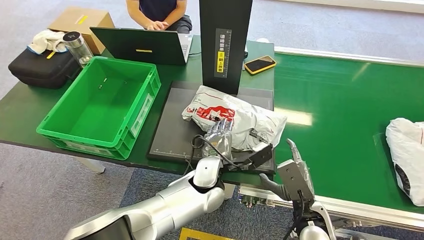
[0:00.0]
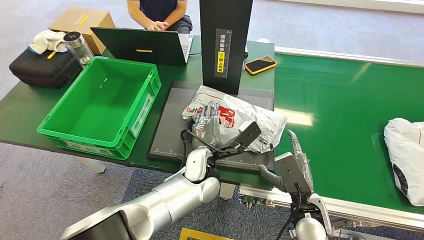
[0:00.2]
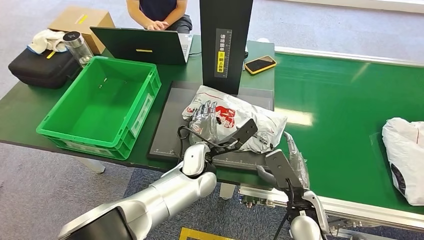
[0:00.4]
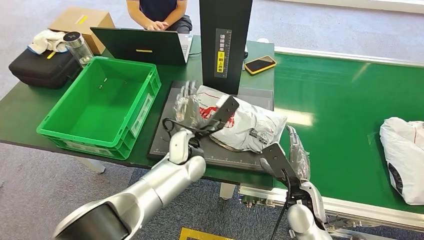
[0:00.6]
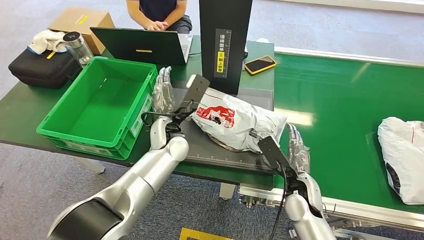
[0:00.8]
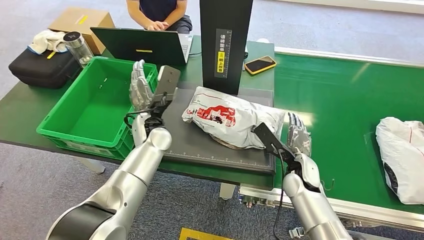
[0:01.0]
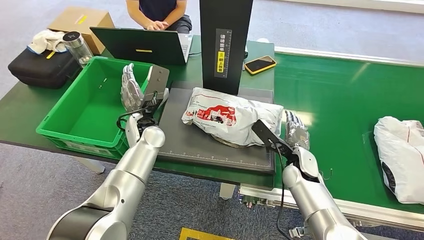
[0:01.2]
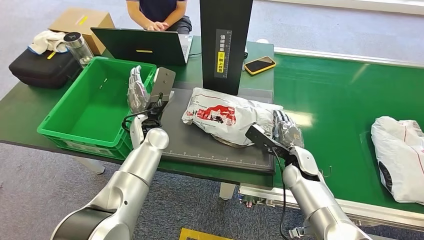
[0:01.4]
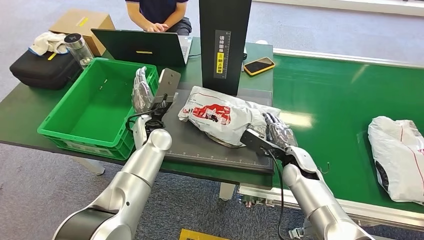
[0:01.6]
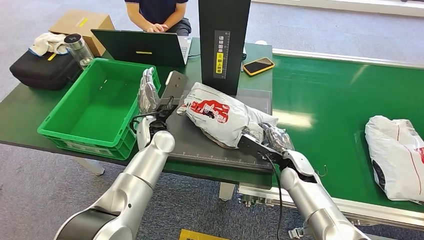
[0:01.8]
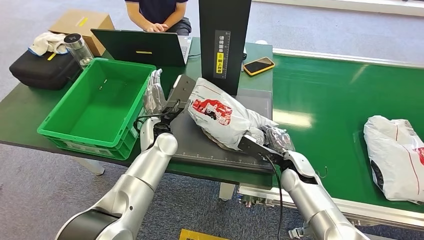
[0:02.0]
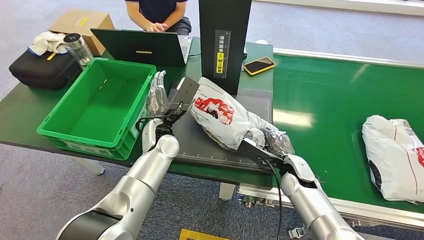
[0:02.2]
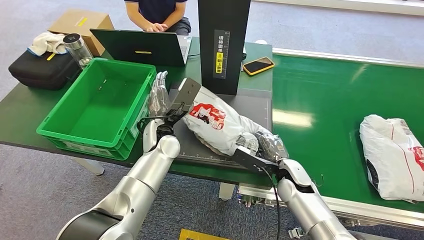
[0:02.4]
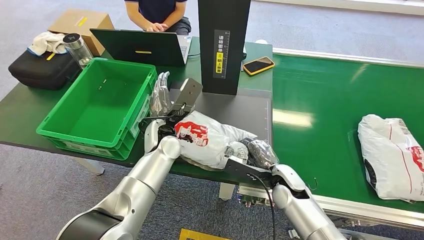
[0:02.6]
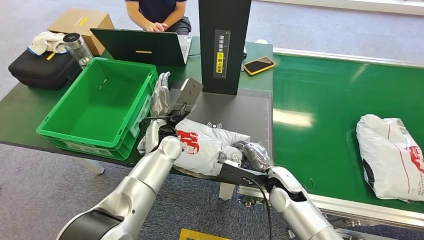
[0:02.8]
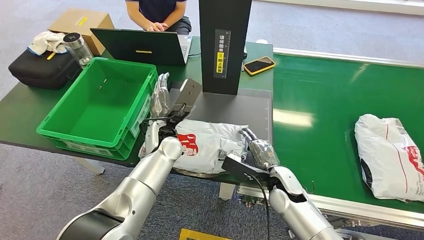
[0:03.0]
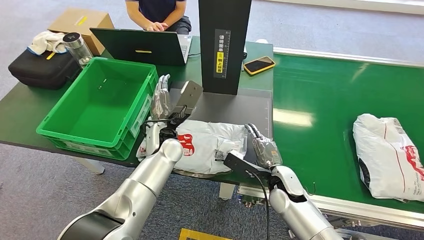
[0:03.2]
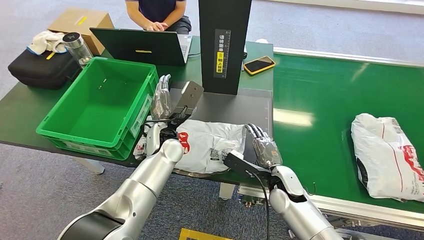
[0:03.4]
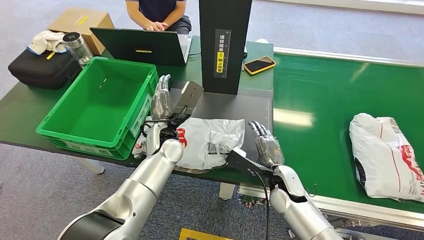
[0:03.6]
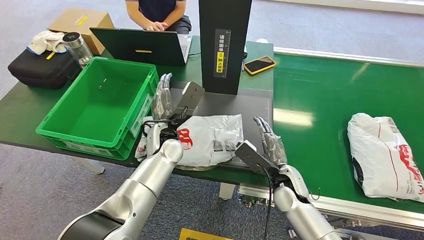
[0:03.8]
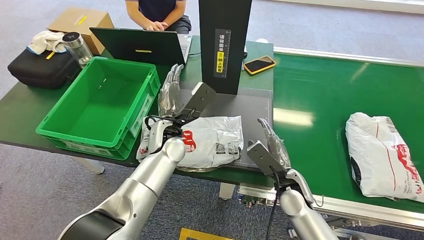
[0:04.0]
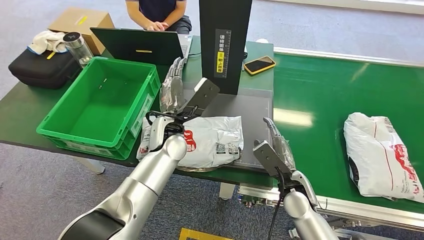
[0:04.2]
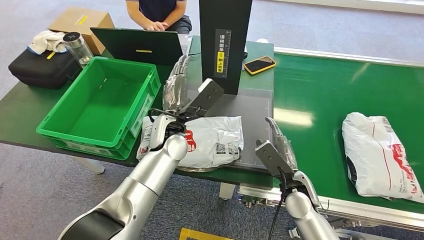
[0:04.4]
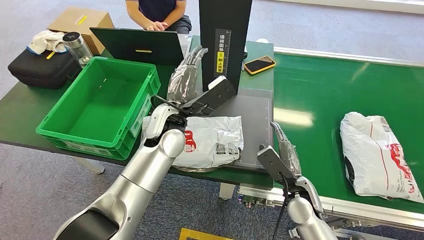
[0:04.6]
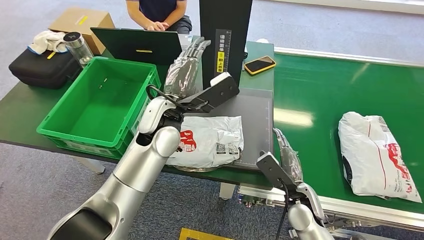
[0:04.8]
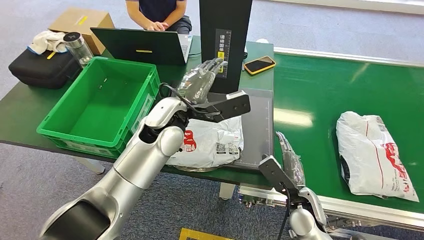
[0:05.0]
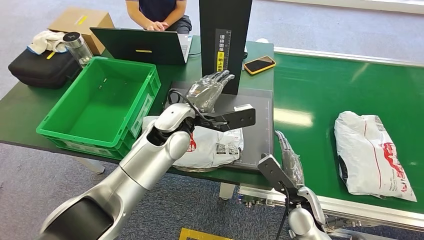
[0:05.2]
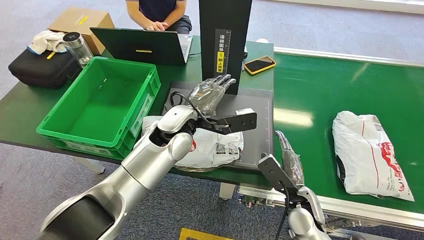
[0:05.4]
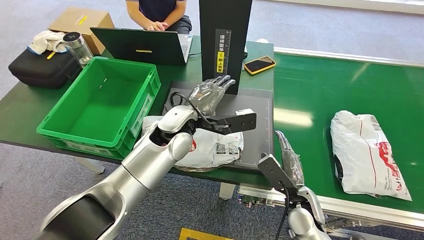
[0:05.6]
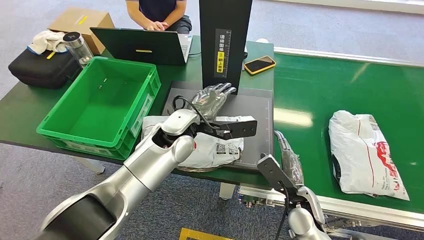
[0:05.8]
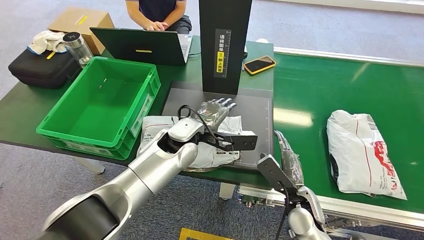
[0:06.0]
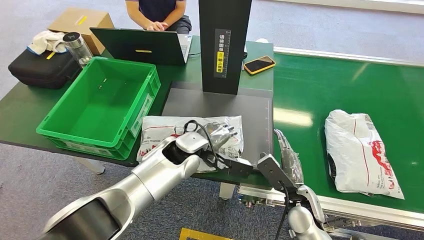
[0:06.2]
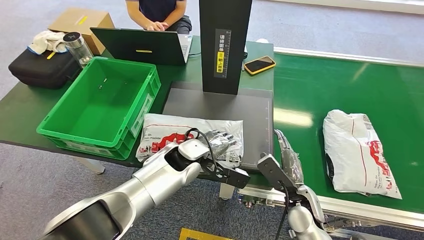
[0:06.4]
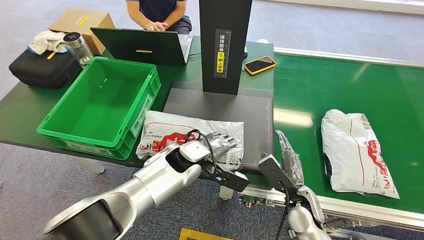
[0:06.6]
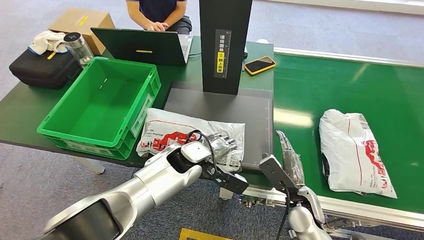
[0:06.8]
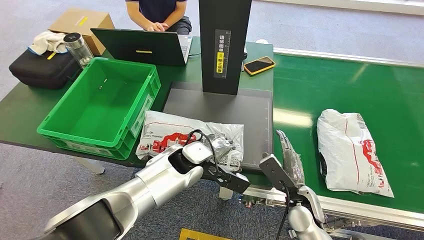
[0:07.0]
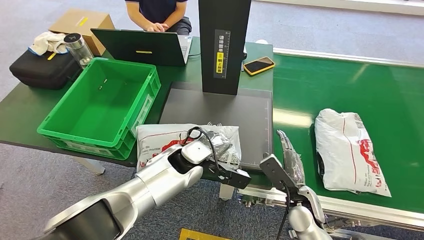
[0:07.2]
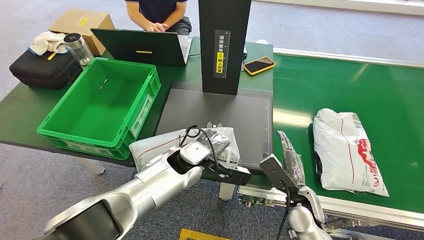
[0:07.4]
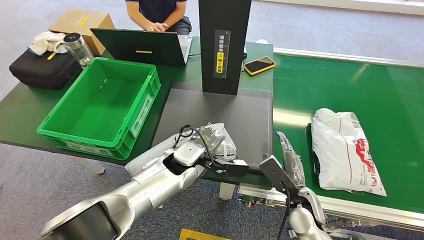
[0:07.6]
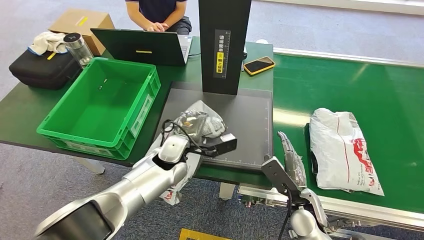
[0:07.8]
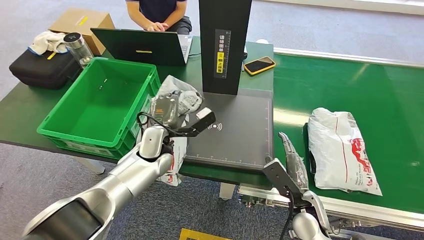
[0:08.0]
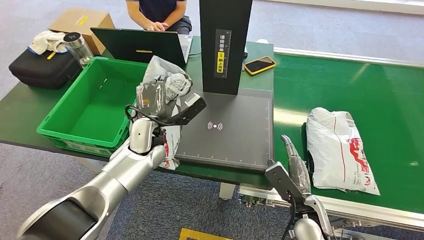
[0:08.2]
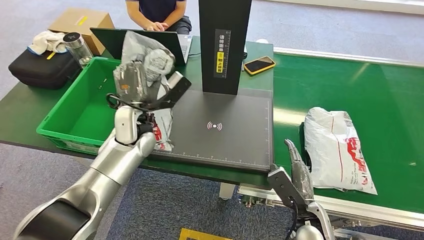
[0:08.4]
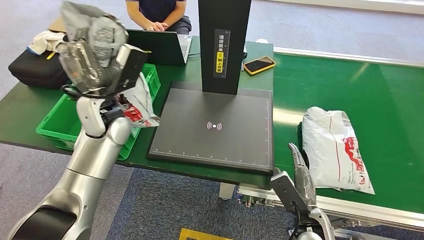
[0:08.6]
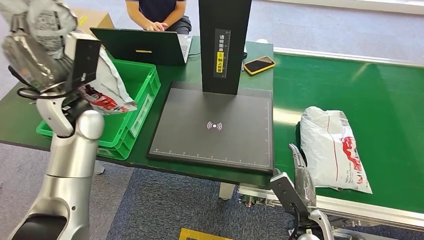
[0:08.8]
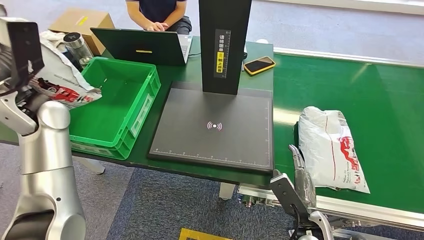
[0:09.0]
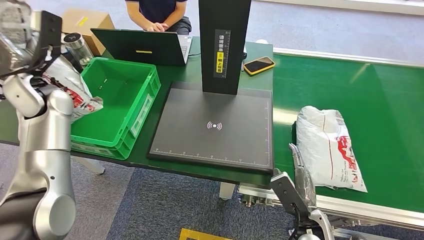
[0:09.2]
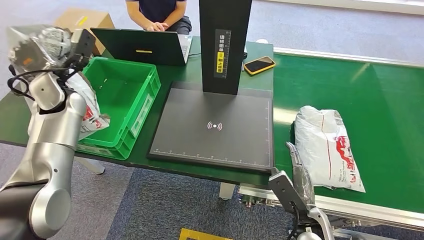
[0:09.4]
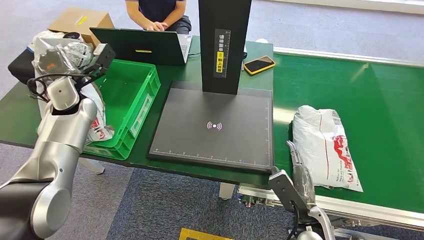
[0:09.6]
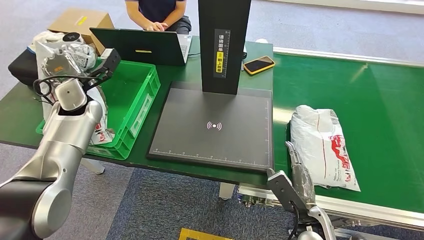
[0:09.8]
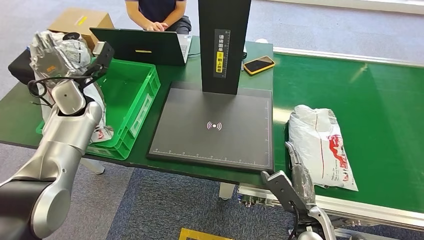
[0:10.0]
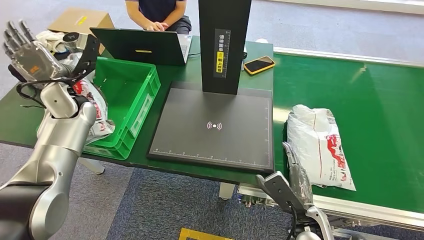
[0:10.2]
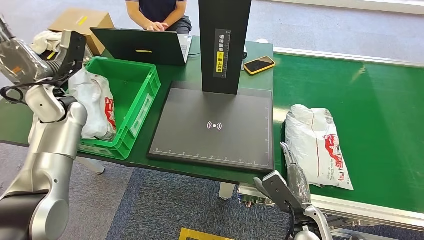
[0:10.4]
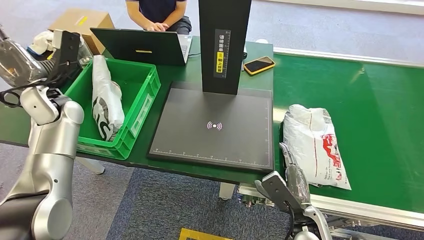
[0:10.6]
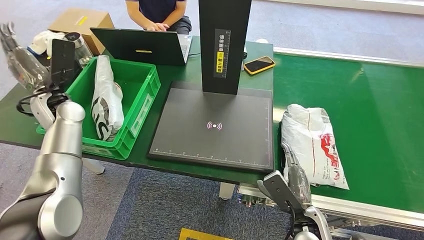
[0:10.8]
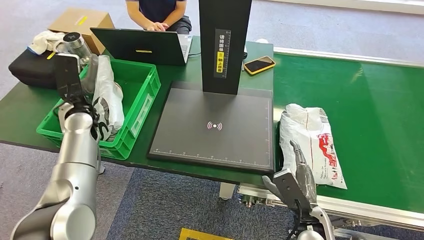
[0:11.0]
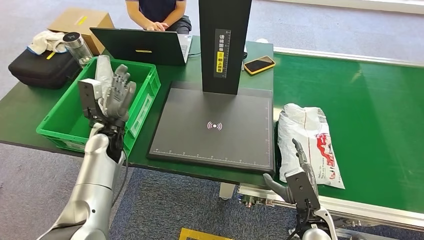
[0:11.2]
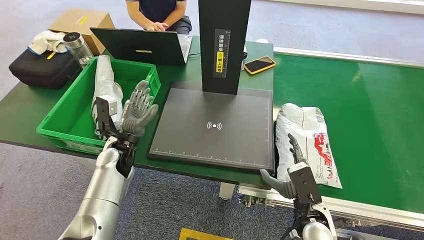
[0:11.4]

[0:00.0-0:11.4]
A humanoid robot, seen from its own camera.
Step, 0:00.0 to 0:08.0: Pick up the package from the inbound machine.
Step, 0:08.2 to 0:11.2: Place the package into the parcel locker.
